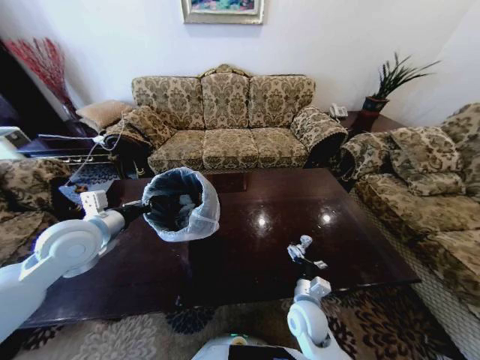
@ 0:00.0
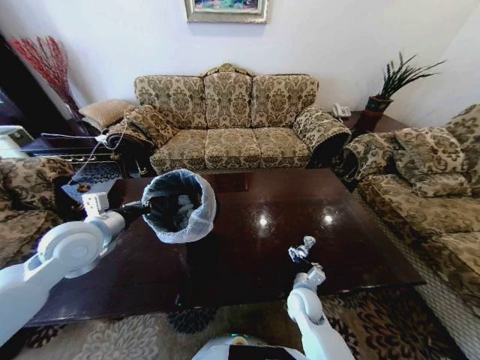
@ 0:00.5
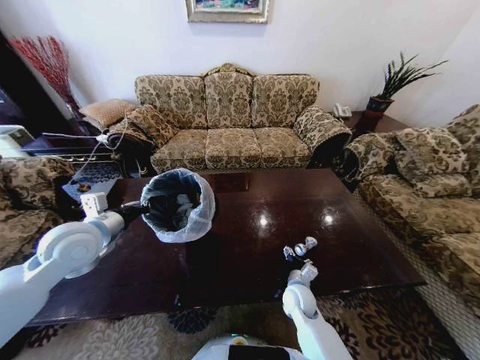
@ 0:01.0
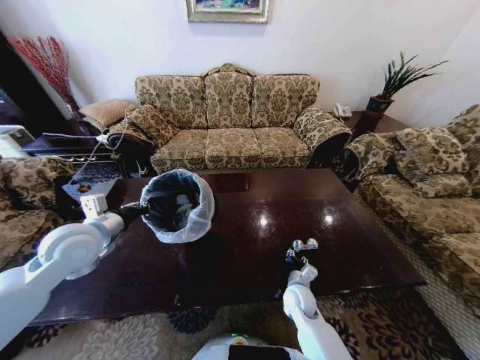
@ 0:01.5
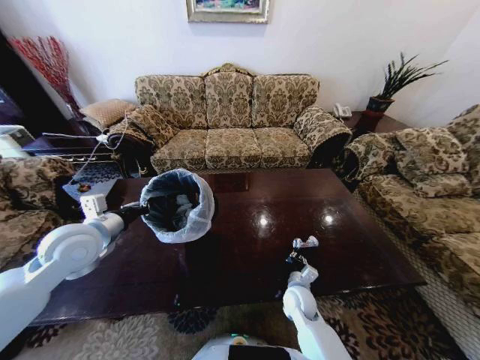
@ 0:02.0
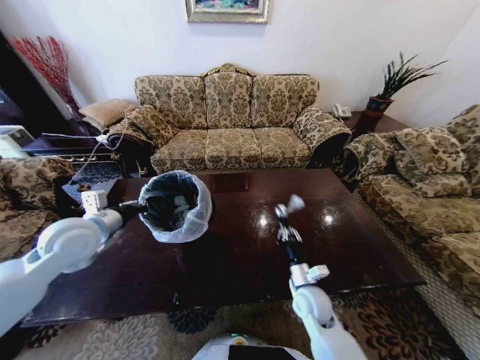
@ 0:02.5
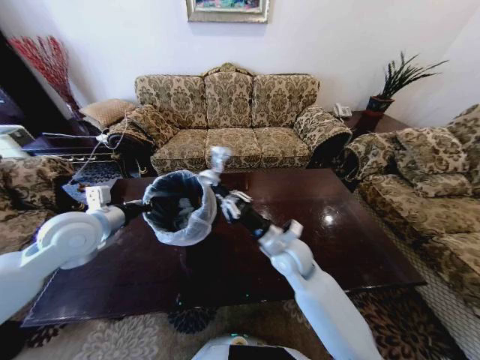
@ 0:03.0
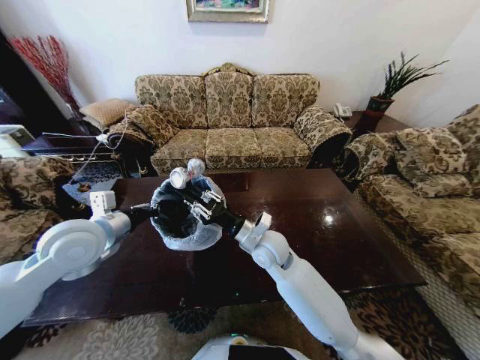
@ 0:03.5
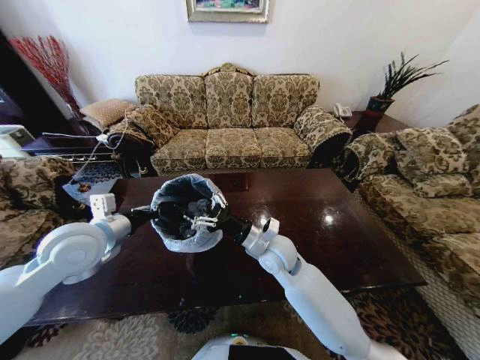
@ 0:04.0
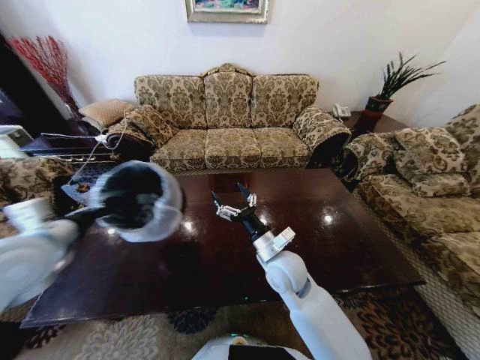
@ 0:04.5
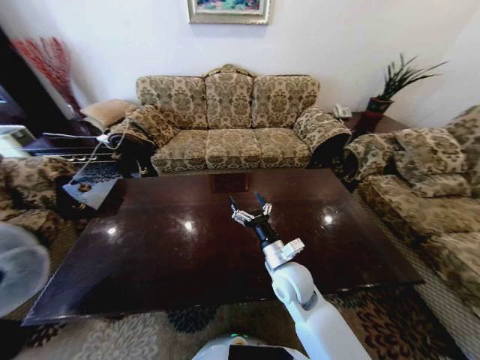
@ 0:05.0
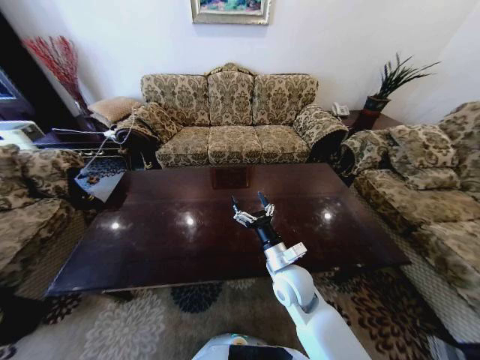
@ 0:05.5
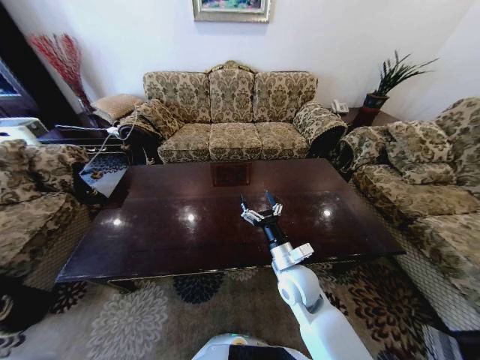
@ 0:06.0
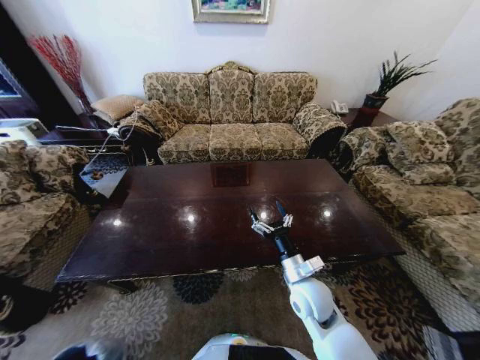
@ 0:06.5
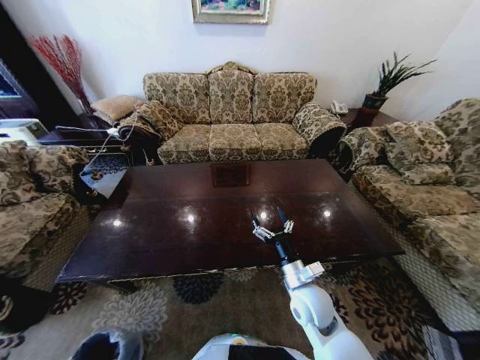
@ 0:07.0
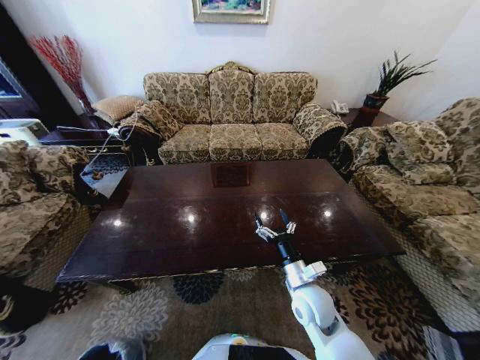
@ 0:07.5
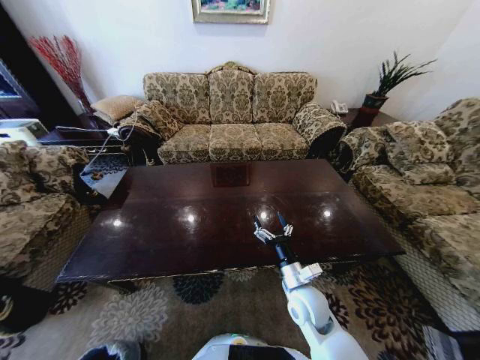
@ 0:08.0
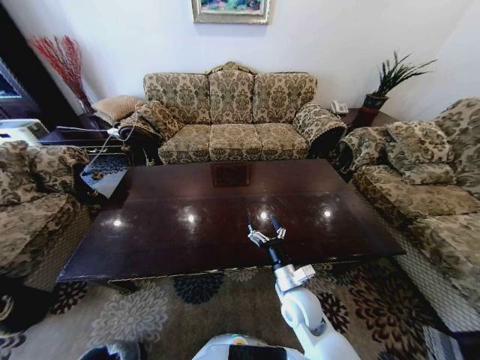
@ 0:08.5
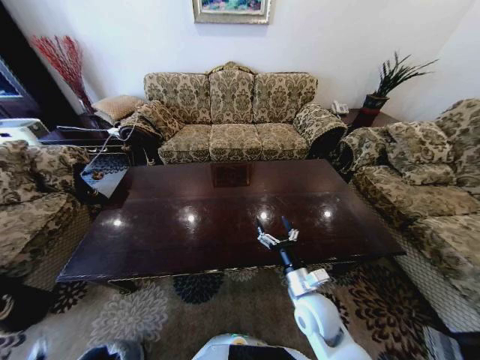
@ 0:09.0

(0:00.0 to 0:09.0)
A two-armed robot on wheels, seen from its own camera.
Task of the whole recording: Move to the front of the table and place the trash on the table into the trash bin.
0:00.0 - 0:02.0: The right gripper is displaced forward by roughly 5 cm, and closes up.
0:02.0 - 0:04.5: The left gripper moves approximately 5 cm, while the right gripper shifts some 20 cm upward and to the left, and opens.
0:04.5 - 0:07.0: The left gripper shifts about 60 cm downward and backward, while the right gripper moves downward, to the right and backward, approximately 10 cm.
0:07.0 - 0:09.0: The left gripper is displaced upward by roughly 10 cm, and opens up.

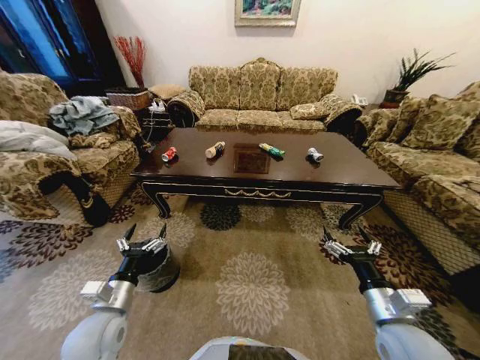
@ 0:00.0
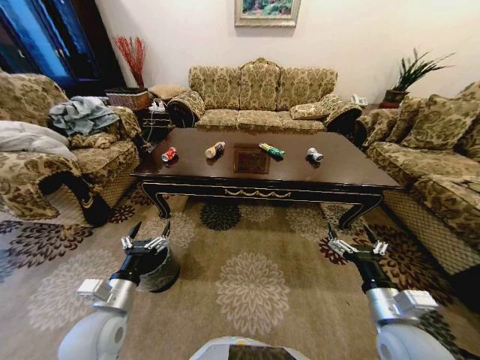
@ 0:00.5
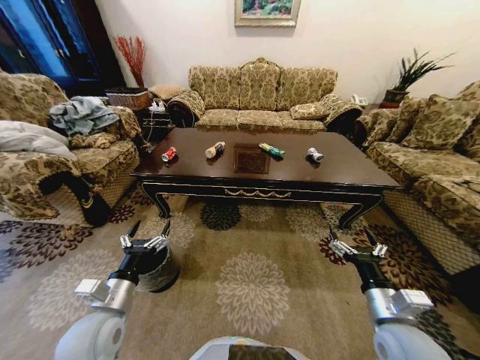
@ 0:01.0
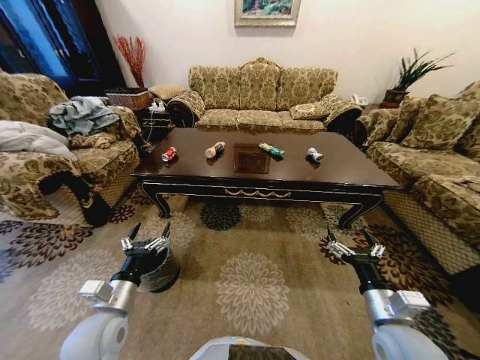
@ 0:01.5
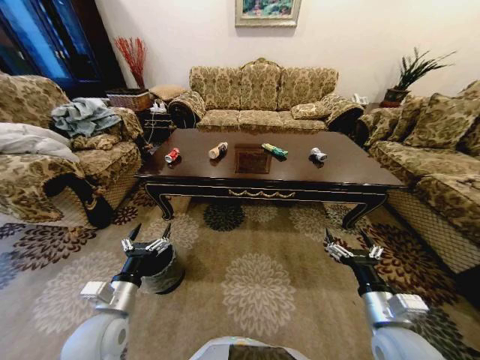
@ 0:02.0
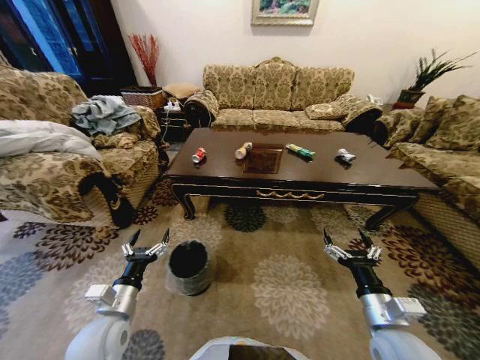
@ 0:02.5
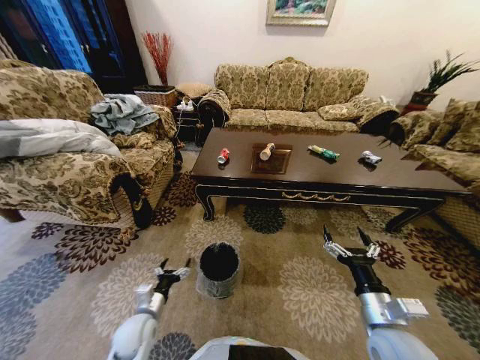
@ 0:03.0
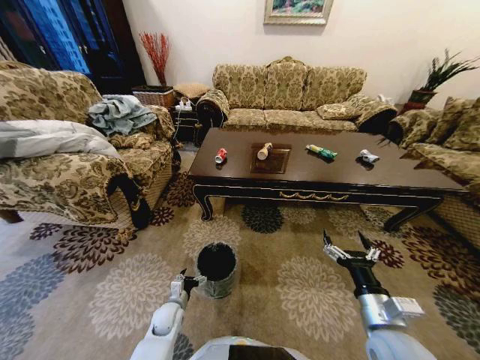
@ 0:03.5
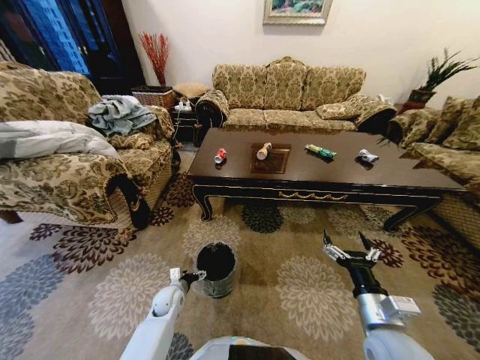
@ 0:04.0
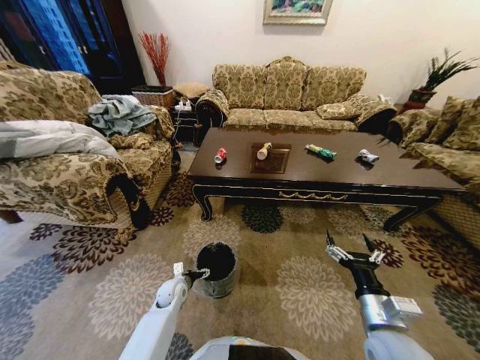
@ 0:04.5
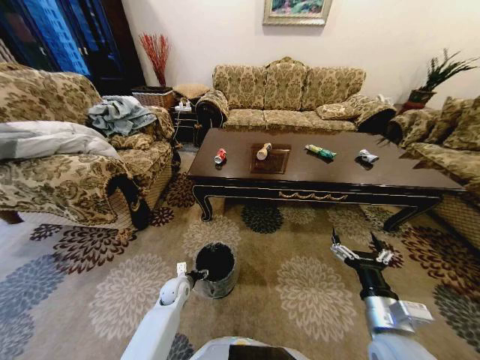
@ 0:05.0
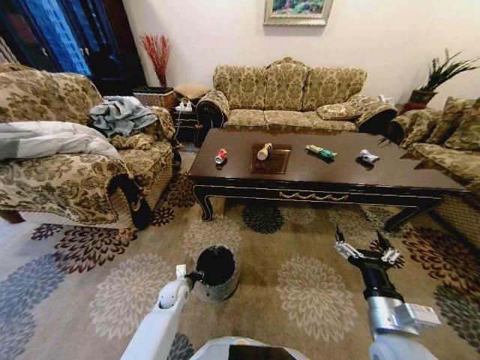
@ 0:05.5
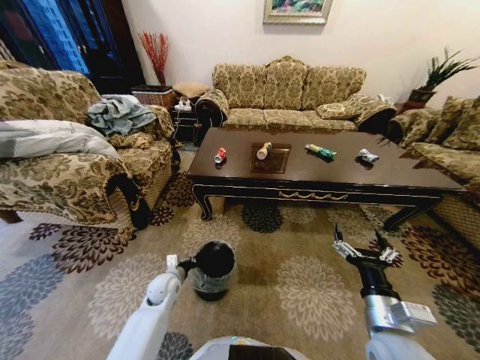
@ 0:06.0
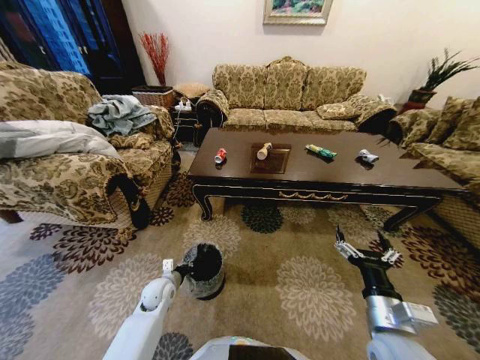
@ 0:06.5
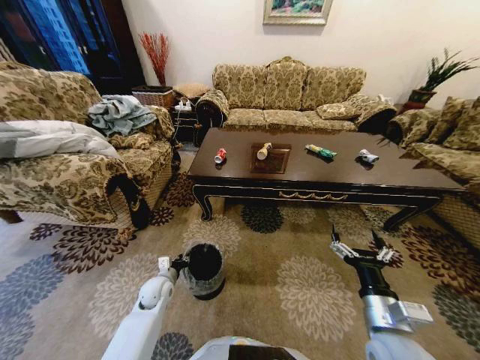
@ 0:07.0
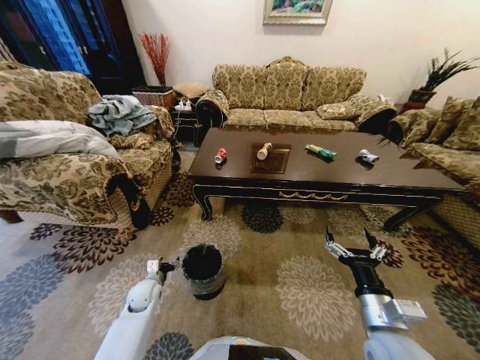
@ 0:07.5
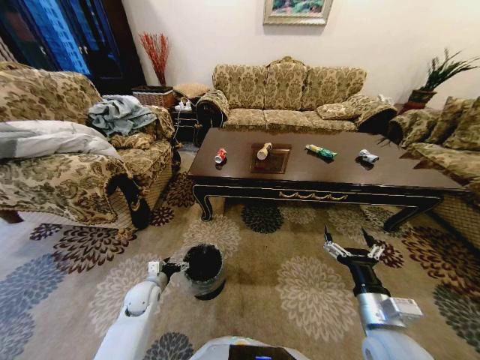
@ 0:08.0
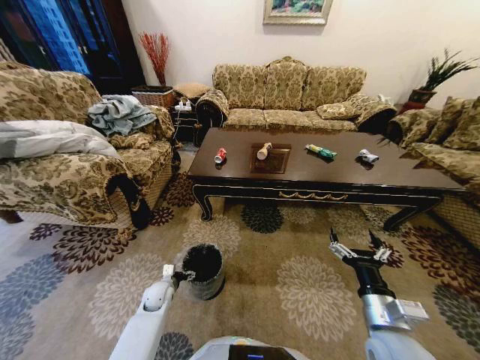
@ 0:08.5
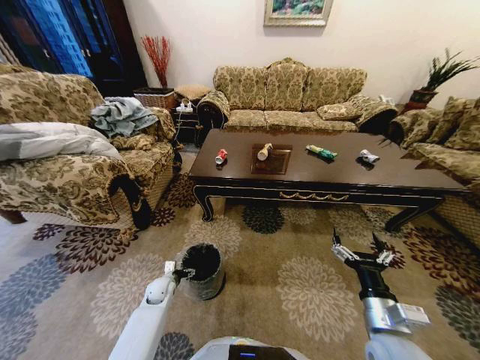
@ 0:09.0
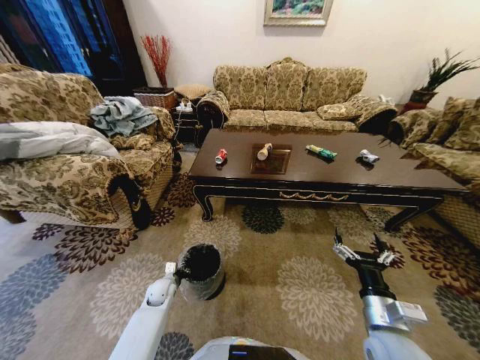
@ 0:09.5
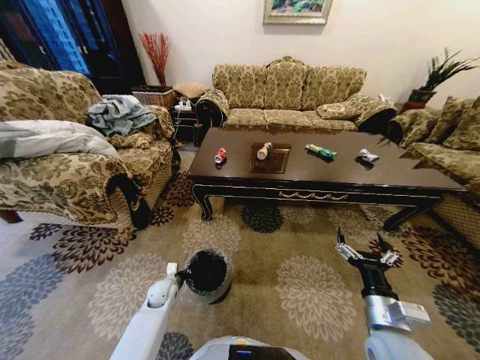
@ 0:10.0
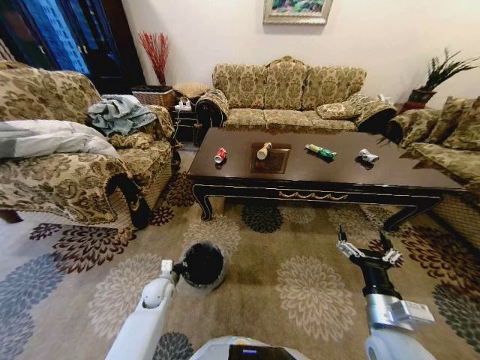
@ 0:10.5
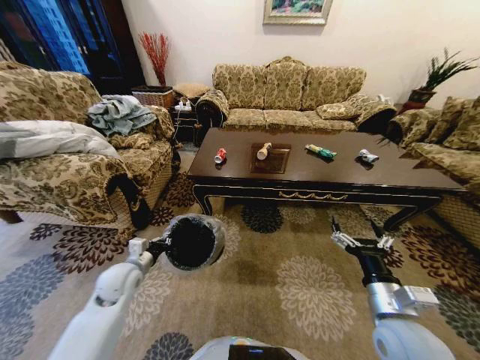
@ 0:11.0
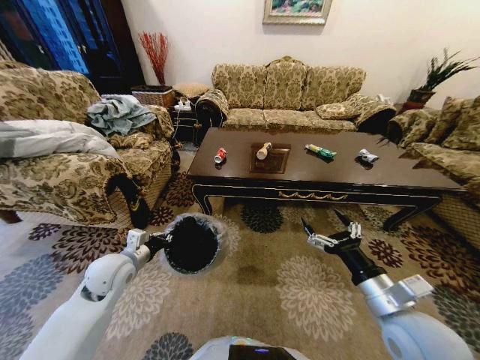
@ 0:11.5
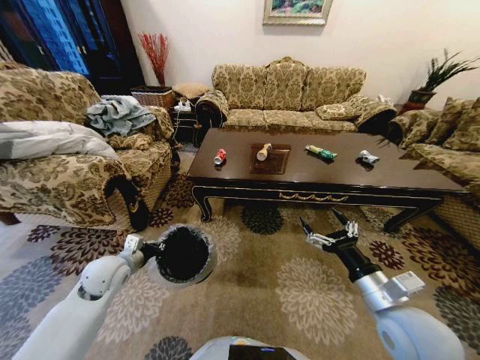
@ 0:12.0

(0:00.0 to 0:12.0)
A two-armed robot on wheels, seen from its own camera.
Task of the whole recording: Move to the front of the table and place the trash on the table into the trash bin.
0:02.0 - 0:04.0: The left gripper is displaced downward and forward by approximately 25 cm.
0:04.0 - 0:06.0: The left gripper heads upward, covering some 5 cm, and closes up.
0:06.0 - 0:08.0: The left gripper moves to the left, approximately 5 cm, and opens up.
0:08.0 - 0:10.0: The left gripper is displaced downward by roughly 5 cm, and closes its fingers.
0:10.0 - 0:12.0: The left gripper travels upward by about 20 cm, while the right gripper goes roughly 5 cm upward.

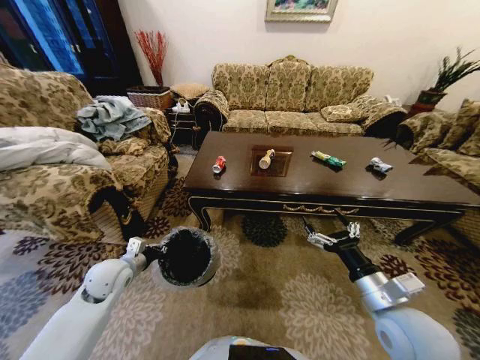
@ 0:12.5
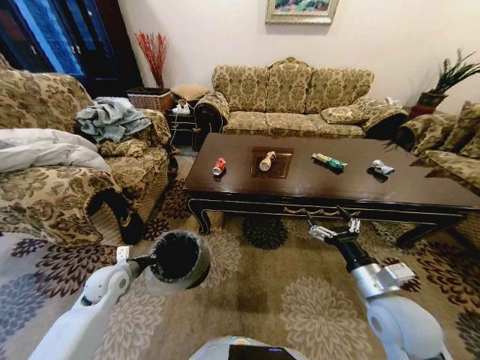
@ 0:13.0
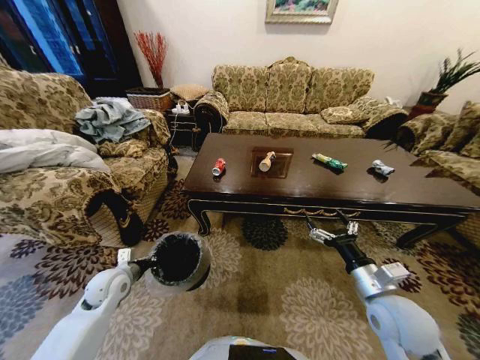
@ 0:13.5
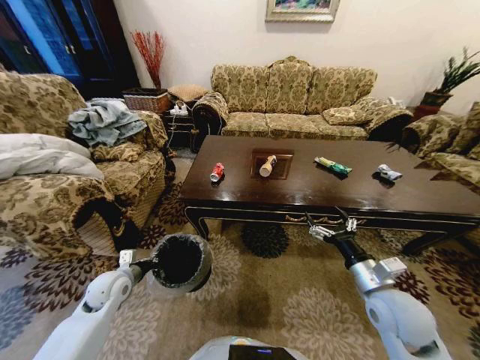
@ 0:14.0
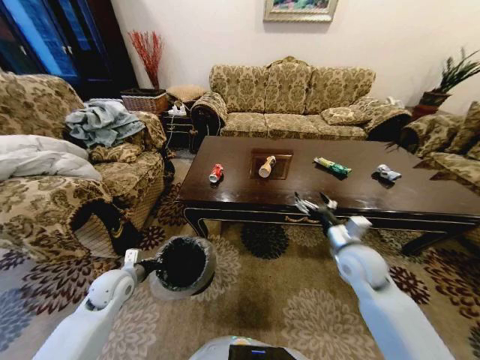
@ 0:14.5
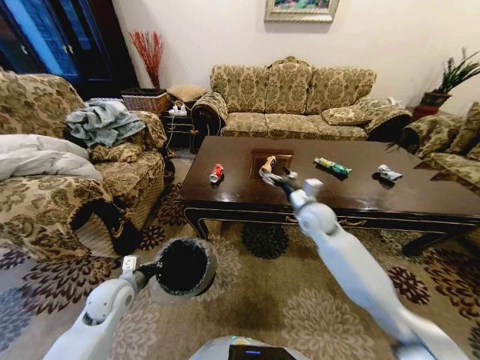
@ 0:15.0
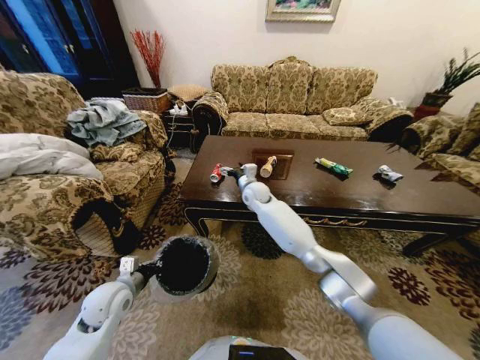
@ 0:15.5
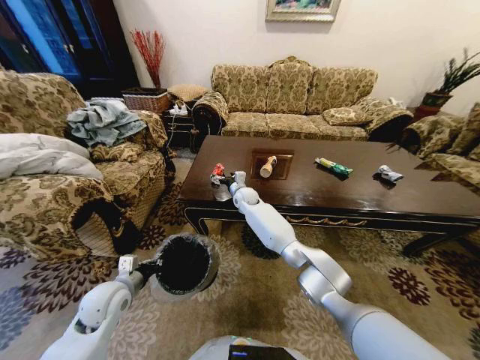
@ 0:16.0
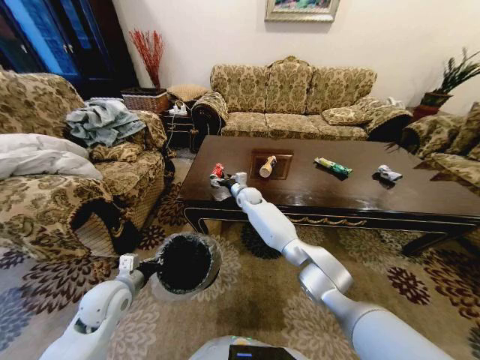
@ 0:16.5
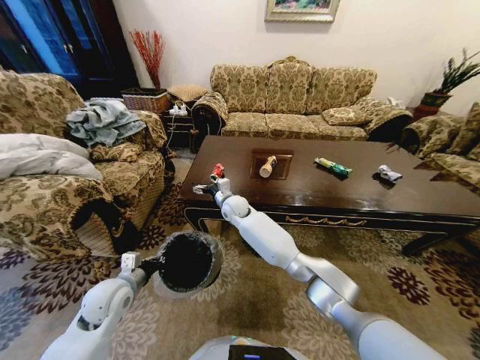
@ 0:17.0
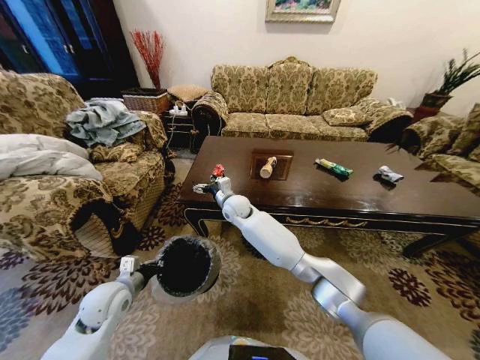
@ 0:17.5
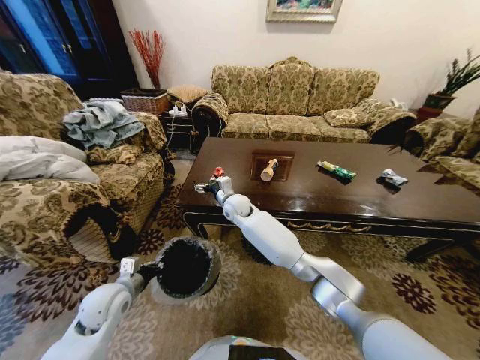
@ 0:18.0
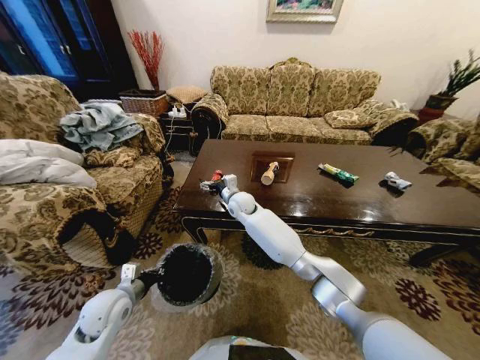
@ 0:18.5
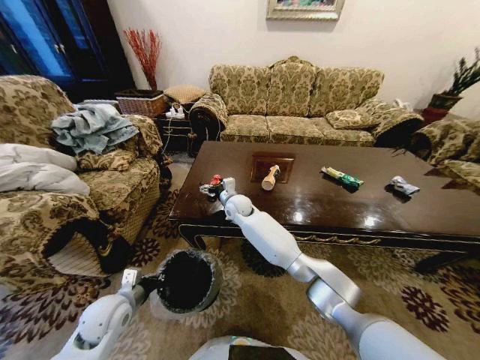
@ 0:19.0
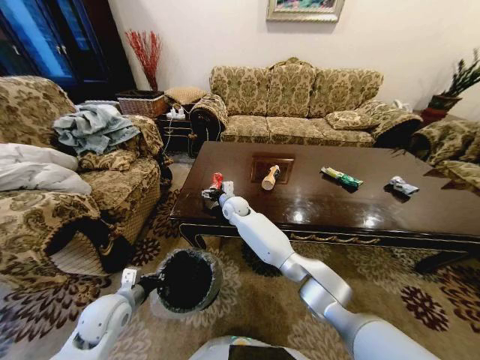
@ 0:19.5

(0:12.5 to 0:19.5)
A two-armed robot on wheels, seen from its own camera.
Task of the whole recording: Move to the front of the table and place the trash on the table into the trash bin.
0:12.5 - 0:14.5: The right gripper moves forward, roughly 15 cm.
0:14.5 - 0:16.0: The right gripper shifts approximately 40 cm to the left and forward, while the left gripper shifts by about 5 cm.
0:16.0 - 0:17.5: The right gripper is displaced backward by roughly 10 cm.
